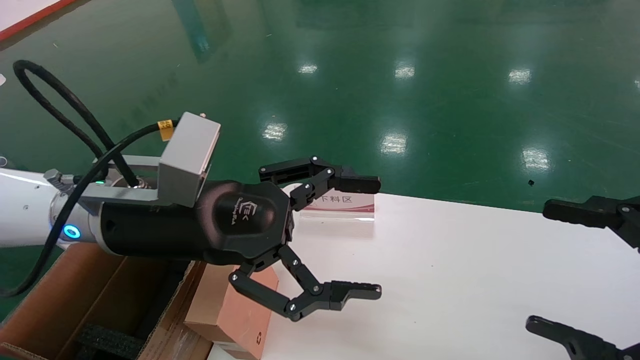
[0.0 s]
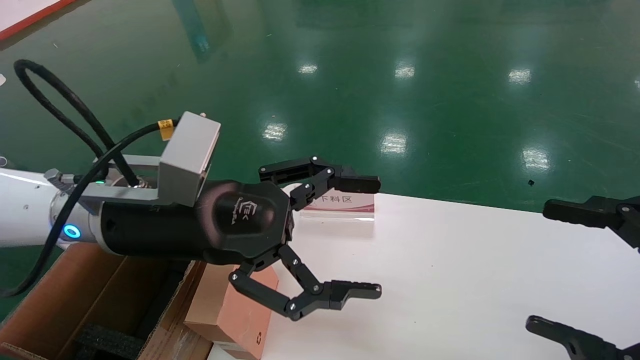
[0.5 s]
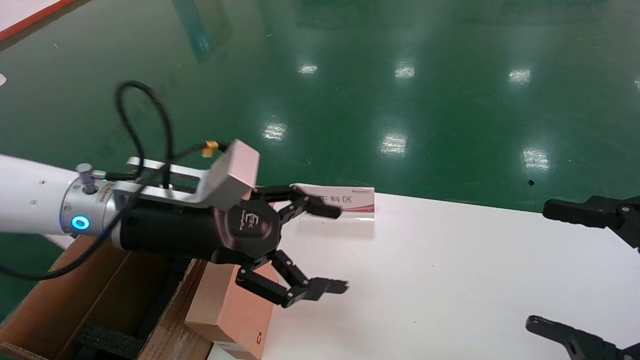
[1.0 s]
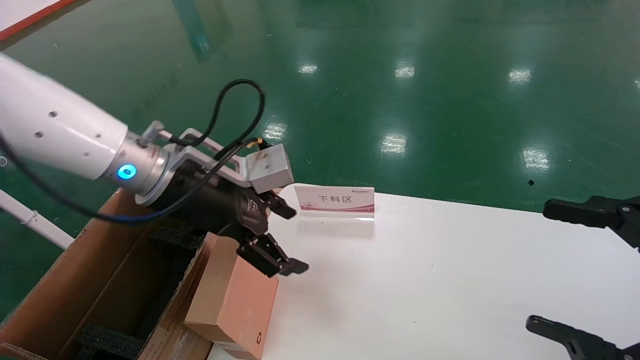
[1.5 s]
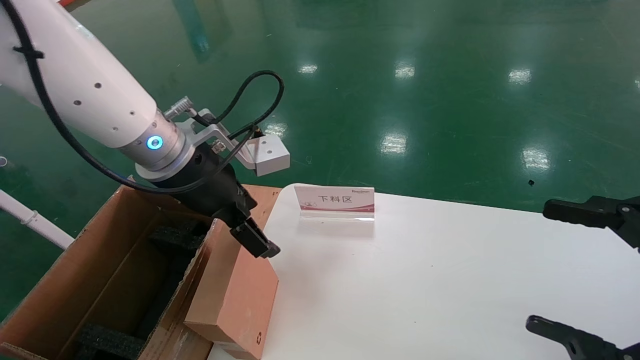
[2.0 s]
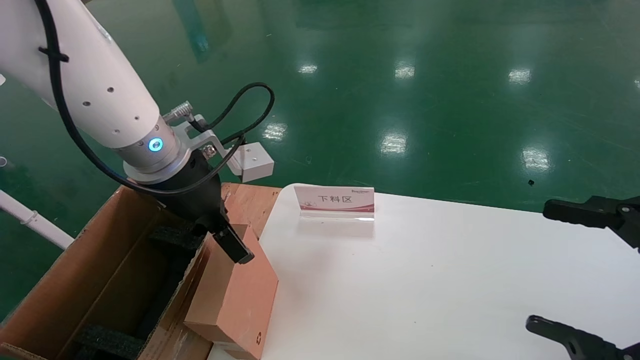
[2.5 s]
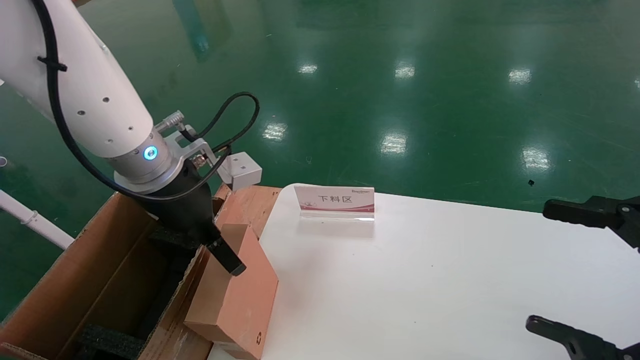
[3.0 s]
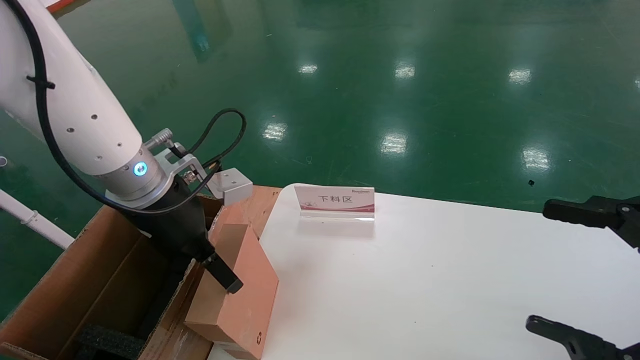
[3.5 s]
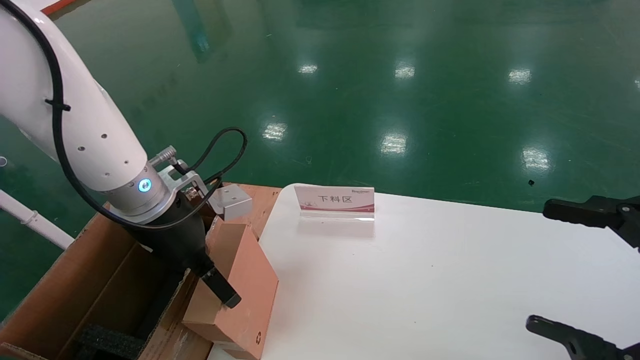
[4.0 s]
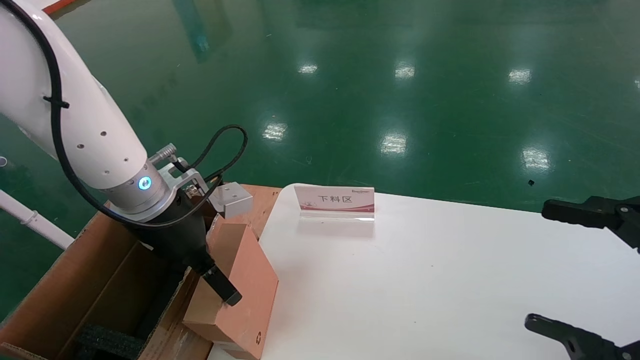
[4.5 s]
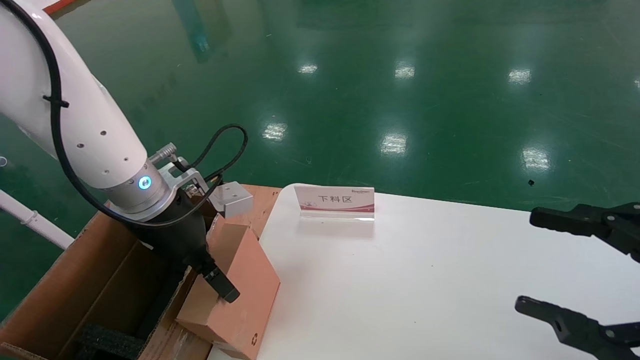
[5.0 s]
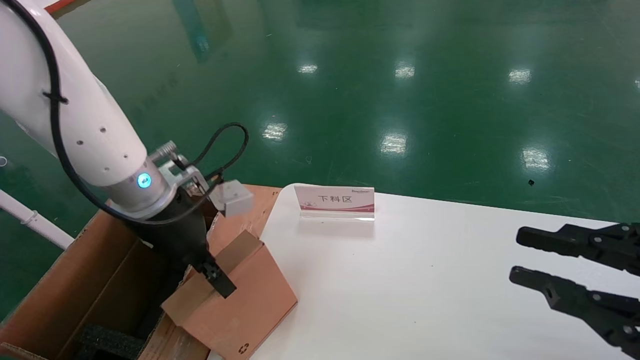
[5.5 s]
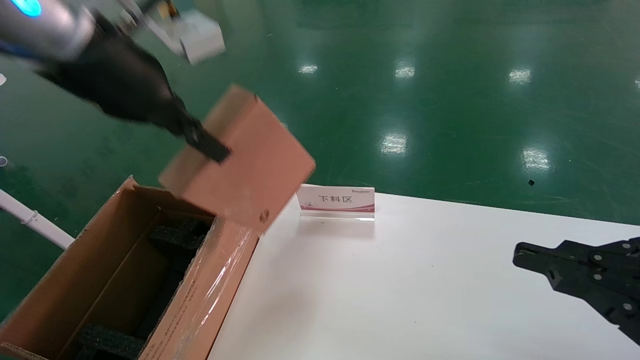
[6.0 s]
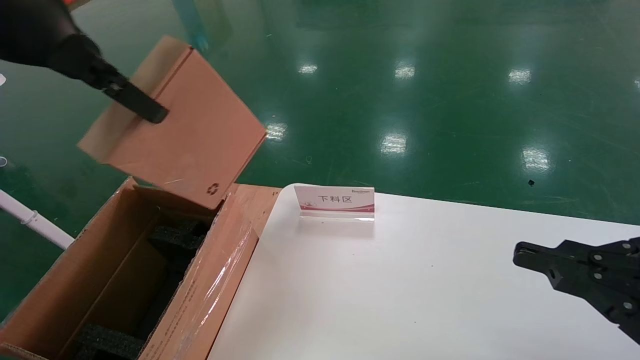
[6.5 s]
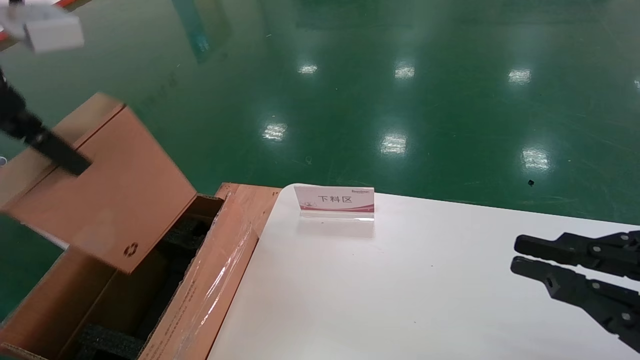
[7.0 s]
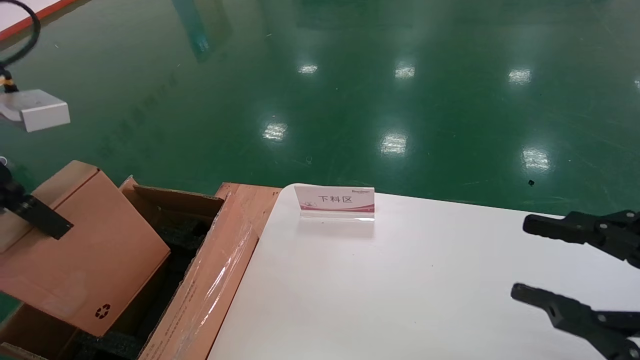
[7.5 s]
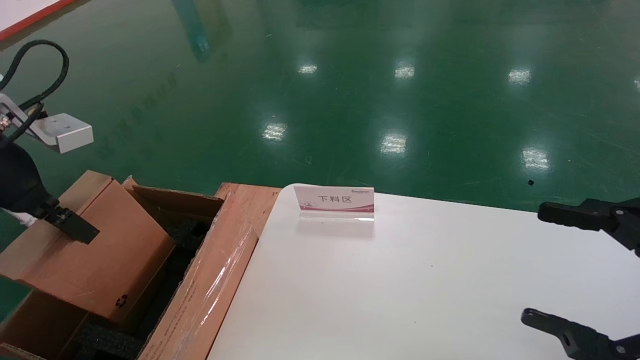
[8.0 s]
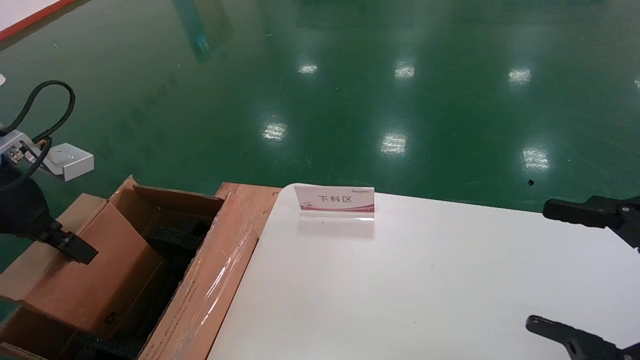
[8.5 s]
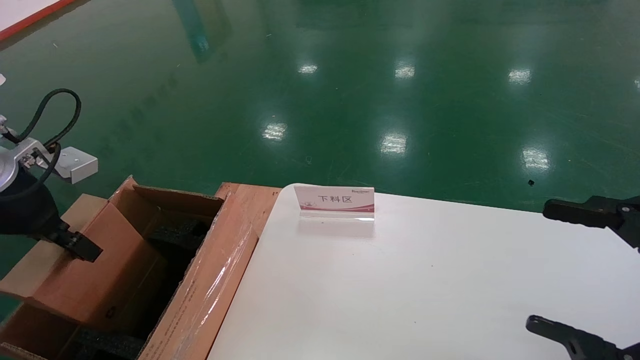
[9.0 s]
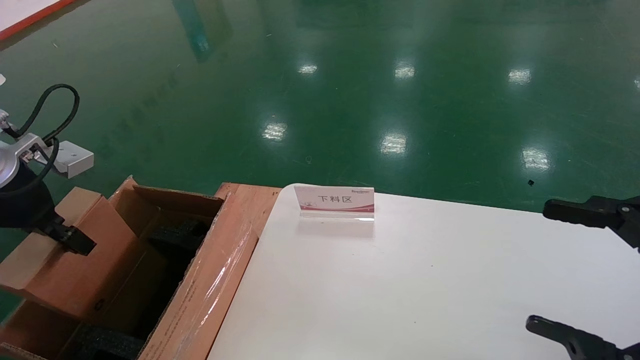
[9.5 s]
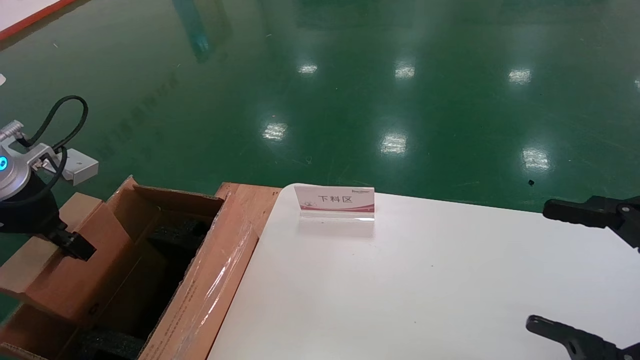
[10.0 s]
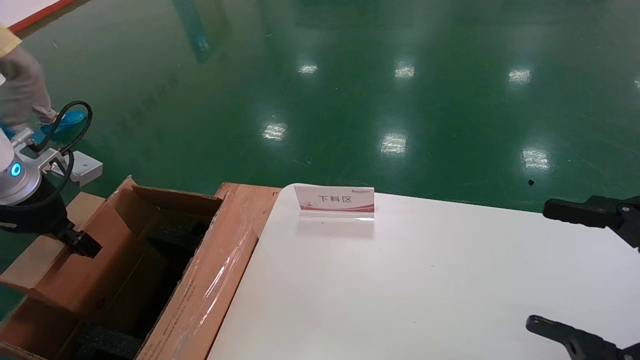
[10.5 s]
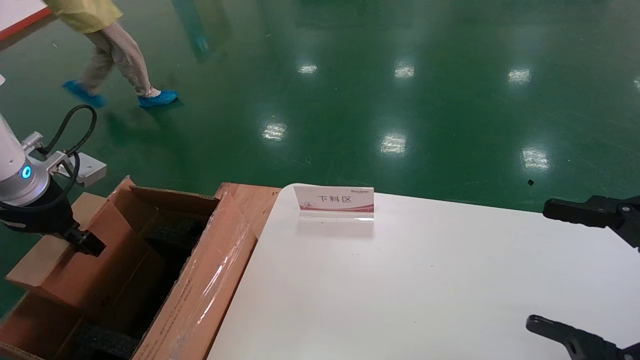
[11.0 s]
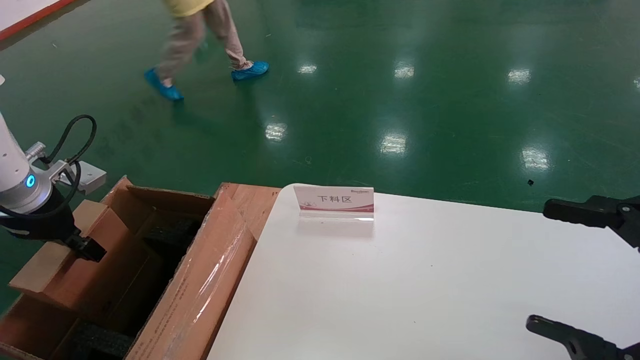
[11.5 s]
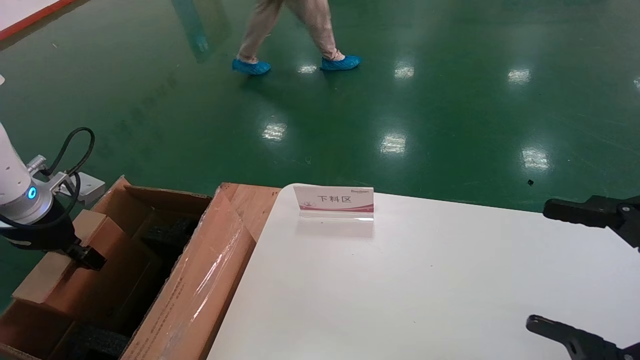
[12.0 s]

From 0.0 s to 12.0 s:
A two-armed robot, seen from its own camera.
Task of the whole recording: pick up the small cardboard box and load it into the large cardboard box.
Step, from 1.5 s to 5.0 s: Pick up the mouse and power cord box.
From 0.0 s to 2.0 s: The left gripper shifts roughly 5 cm forward.
From 2.0 s to 4.0 s: The left gripper goes roughly 5 cm downward.
From 4.0 s to 6.0 s: The right gripper closes its fingers. Meanwhile the left gripper is displaced upward by some 15 cm, and closes its fingers.
From 6.0 s to 8.0 s: The left gripper goes some 15 cm to the left and downward. Meanwhile the right gripper opens.
From 8.0 s to 10.0 s: The left gripper shifts some 5 cm downward.
From 10.0 s to 12.0 s: The left gripper goes some 5 cm downward.

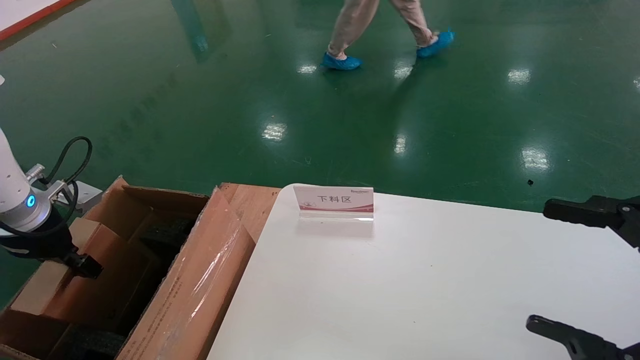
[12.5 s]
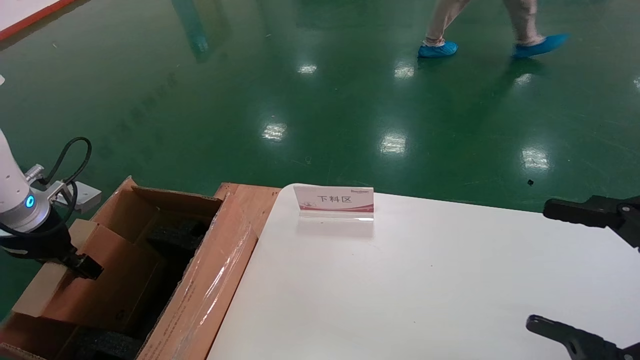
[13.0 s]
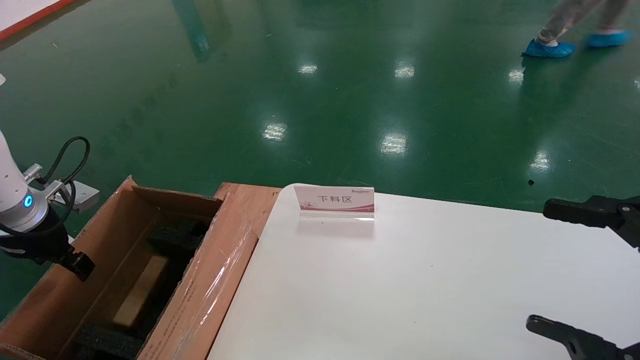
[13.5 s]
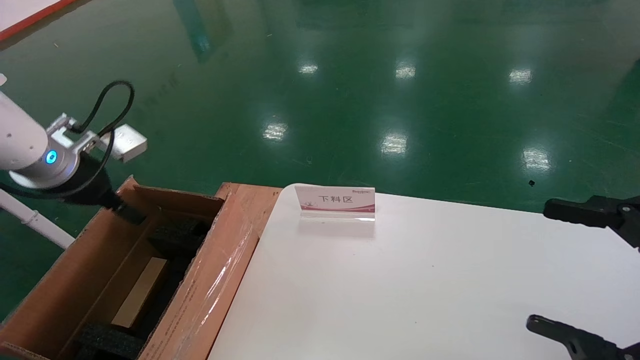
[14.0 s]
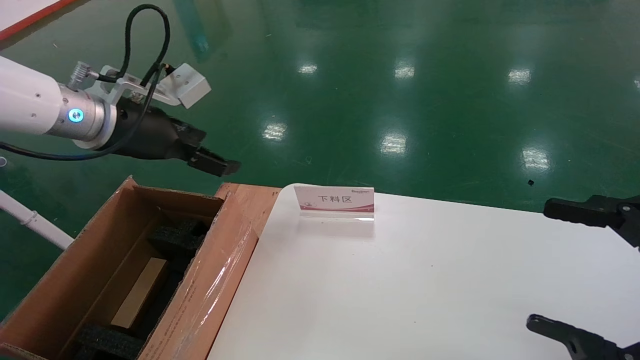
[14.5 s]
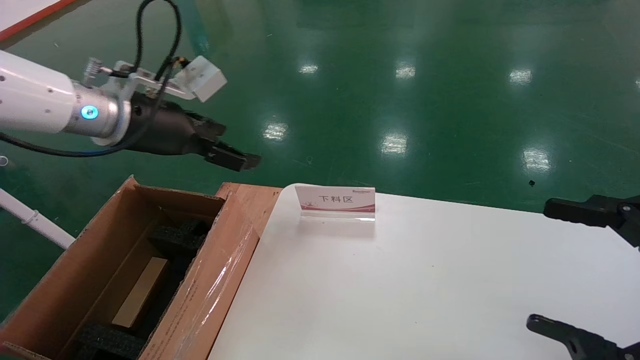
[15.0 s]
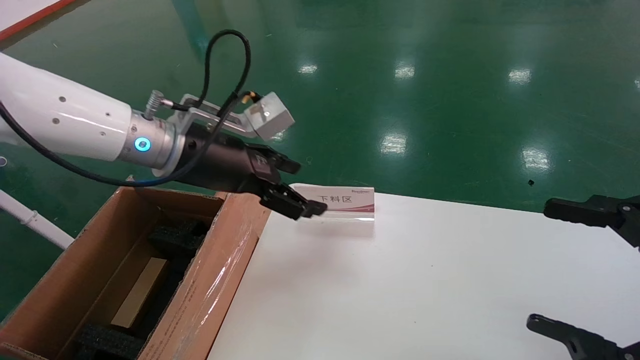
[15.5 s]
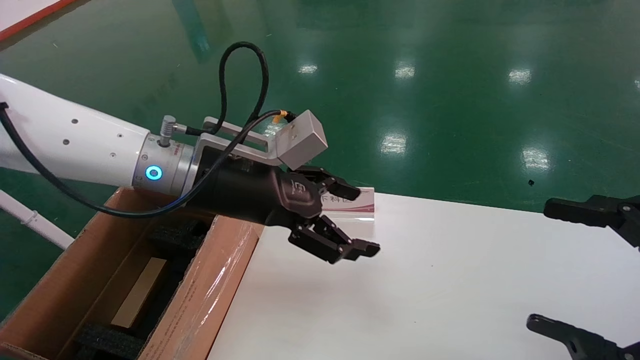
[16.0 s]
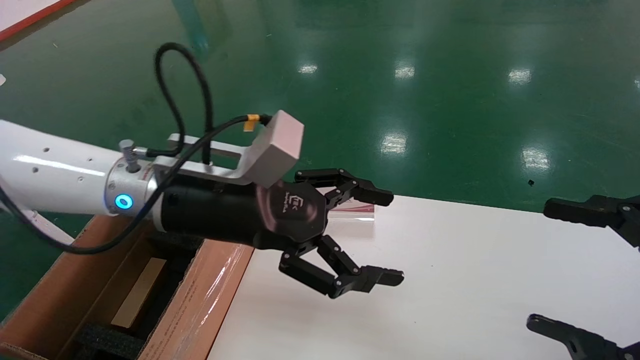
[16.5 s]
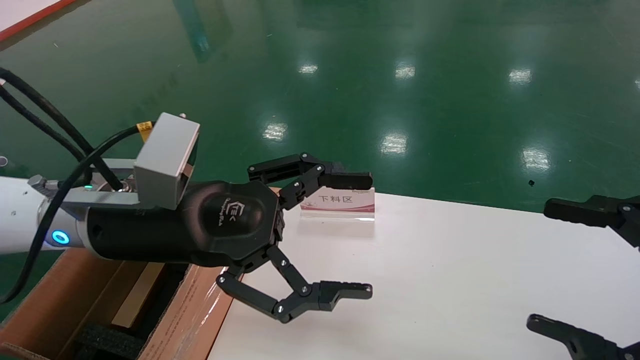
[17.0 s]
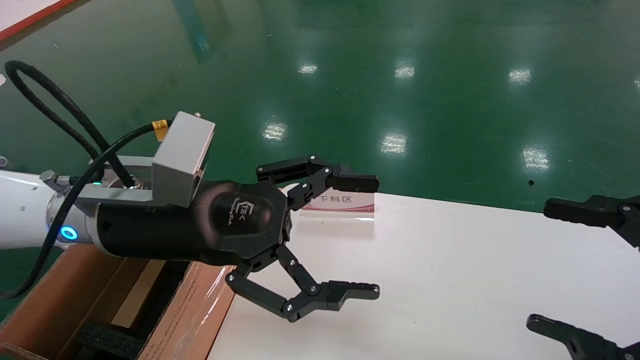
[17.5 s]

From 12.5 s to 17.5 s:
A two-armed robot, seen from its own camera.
Task of the whole recording: pick up the small cardboard box and load it into the large cardboard box.
From 12.5 s to 15.0 s: The left gripper heads to the right and upward, covering about 20 cm, and opens.
From 15.0 s to 17.5 s: The left gripper travels backward, to the right and downward by approximately 15 cm.
